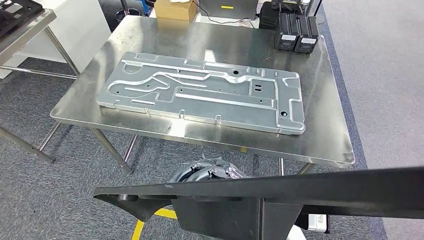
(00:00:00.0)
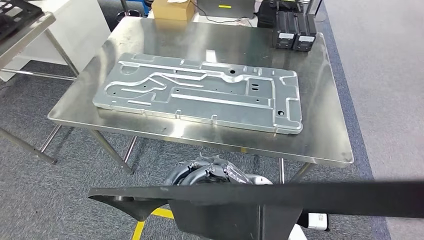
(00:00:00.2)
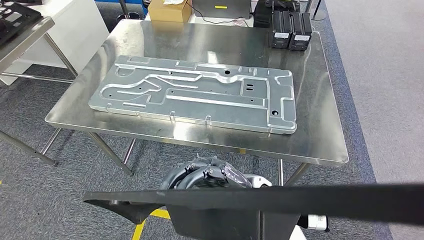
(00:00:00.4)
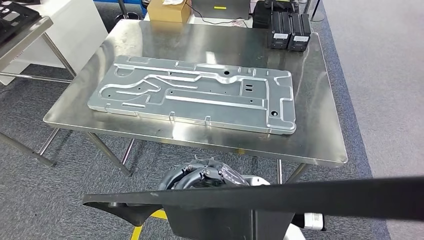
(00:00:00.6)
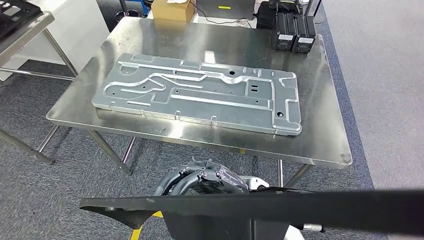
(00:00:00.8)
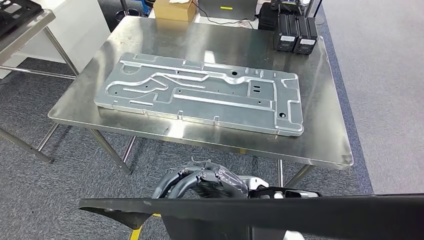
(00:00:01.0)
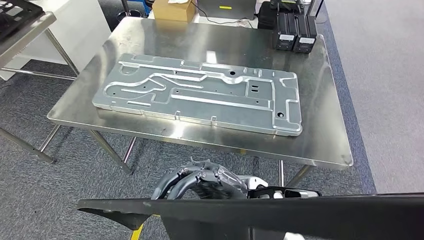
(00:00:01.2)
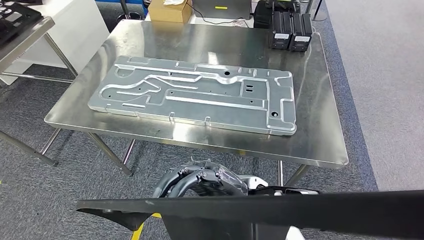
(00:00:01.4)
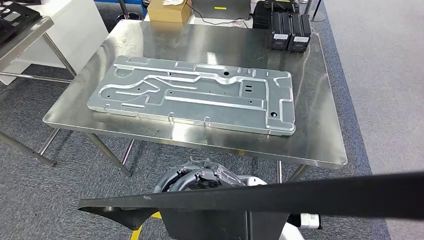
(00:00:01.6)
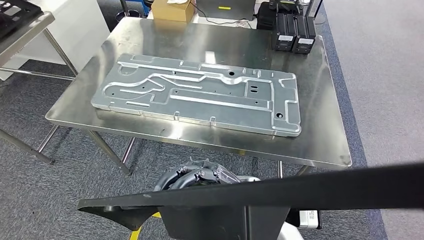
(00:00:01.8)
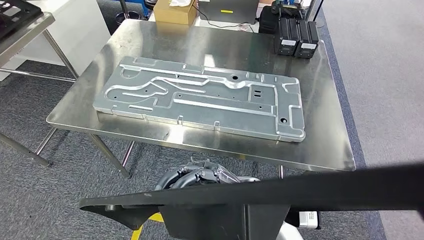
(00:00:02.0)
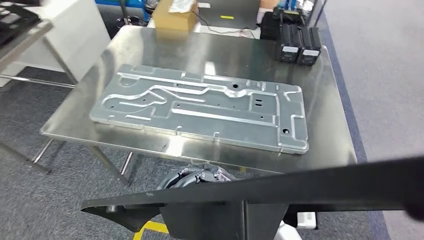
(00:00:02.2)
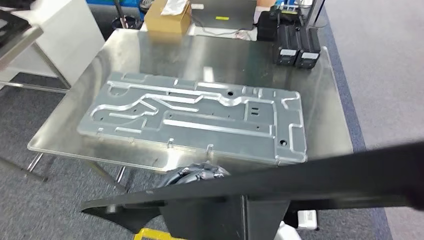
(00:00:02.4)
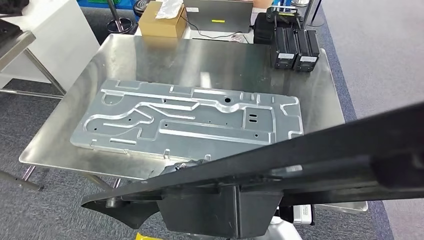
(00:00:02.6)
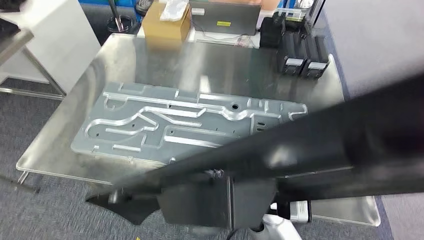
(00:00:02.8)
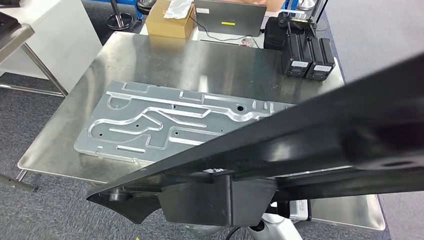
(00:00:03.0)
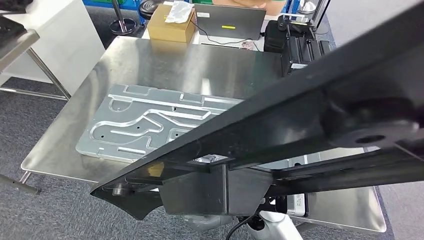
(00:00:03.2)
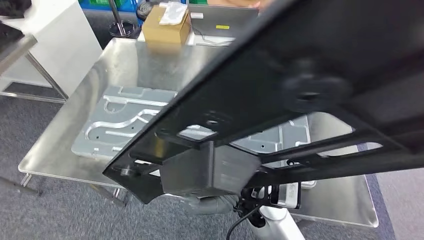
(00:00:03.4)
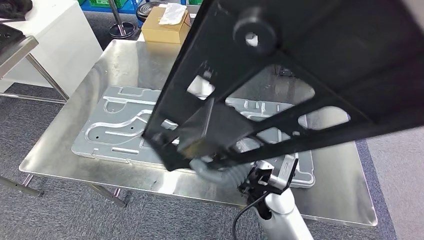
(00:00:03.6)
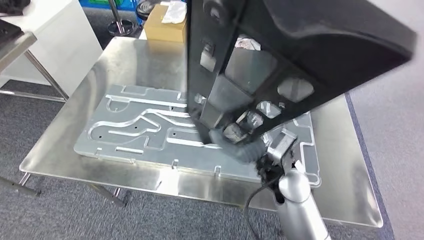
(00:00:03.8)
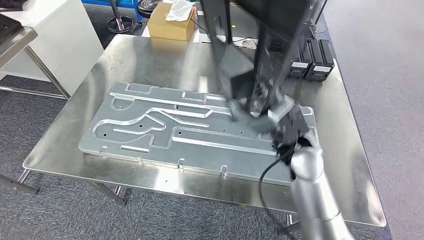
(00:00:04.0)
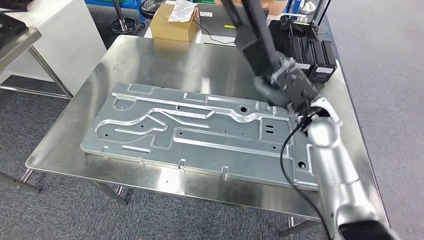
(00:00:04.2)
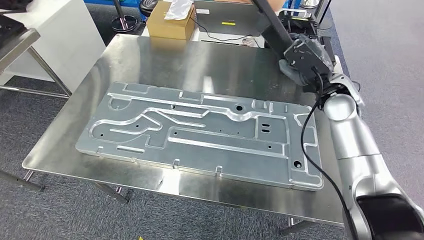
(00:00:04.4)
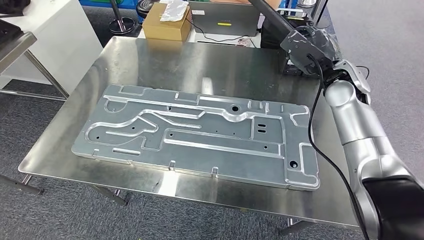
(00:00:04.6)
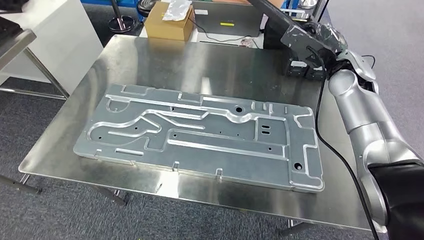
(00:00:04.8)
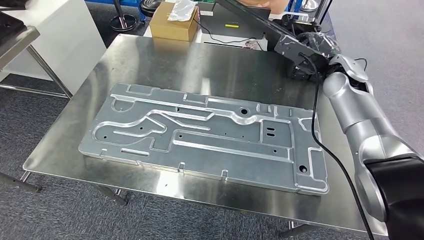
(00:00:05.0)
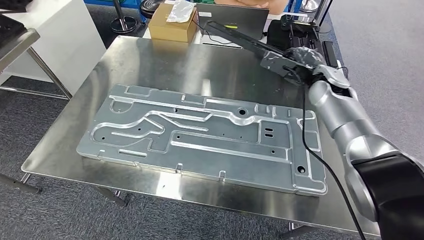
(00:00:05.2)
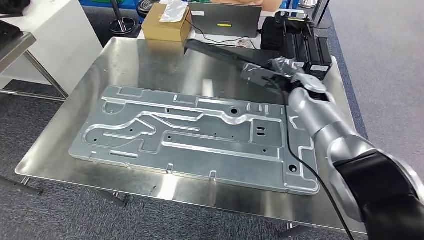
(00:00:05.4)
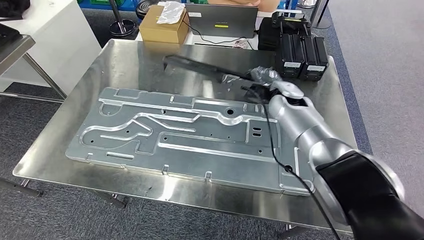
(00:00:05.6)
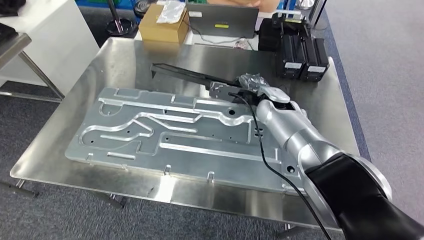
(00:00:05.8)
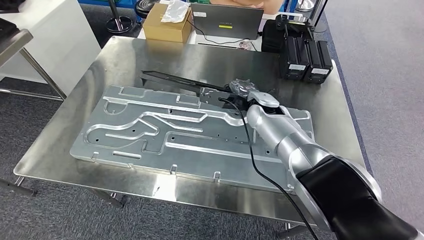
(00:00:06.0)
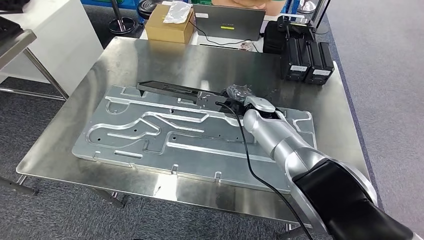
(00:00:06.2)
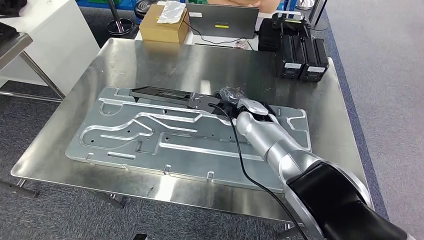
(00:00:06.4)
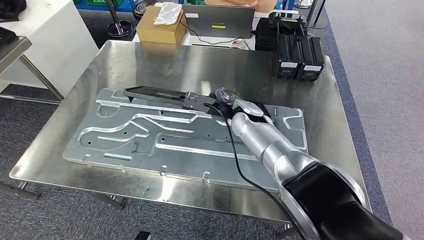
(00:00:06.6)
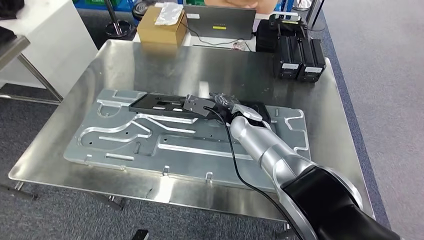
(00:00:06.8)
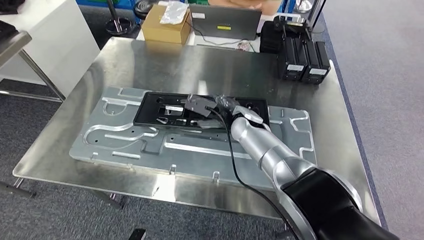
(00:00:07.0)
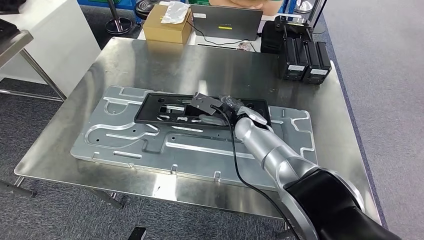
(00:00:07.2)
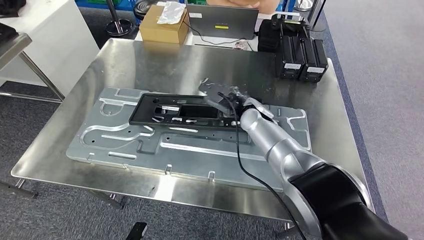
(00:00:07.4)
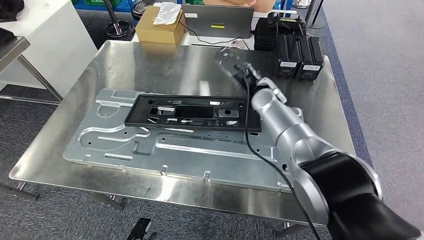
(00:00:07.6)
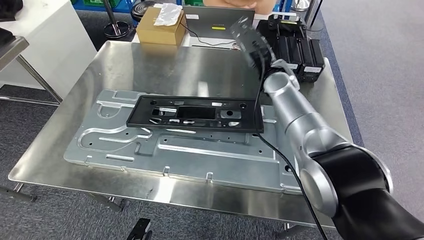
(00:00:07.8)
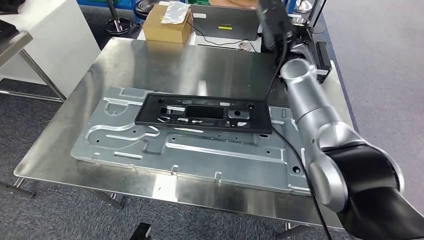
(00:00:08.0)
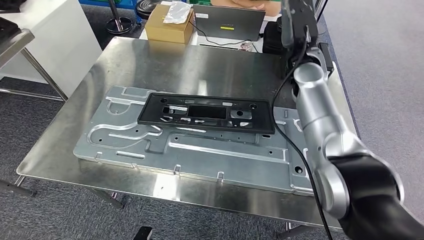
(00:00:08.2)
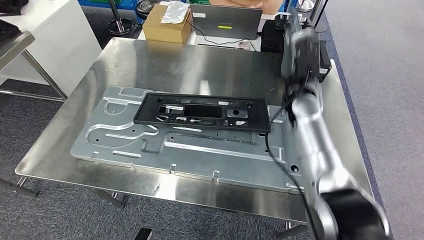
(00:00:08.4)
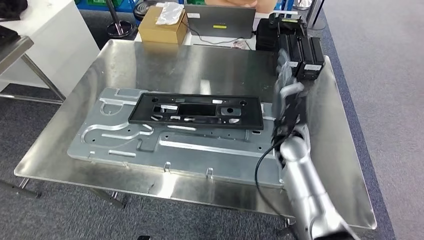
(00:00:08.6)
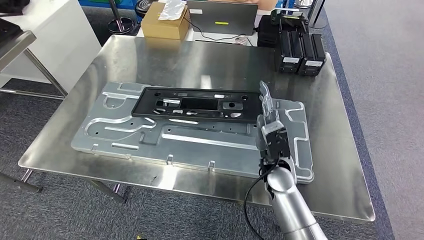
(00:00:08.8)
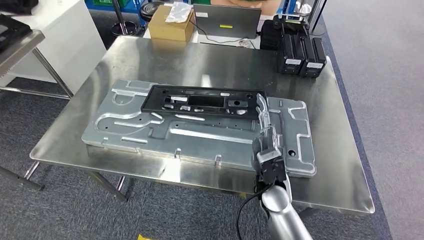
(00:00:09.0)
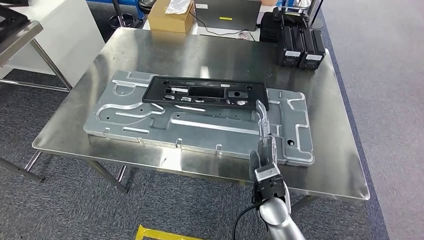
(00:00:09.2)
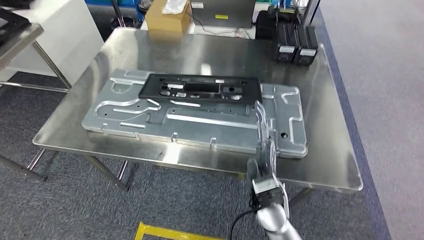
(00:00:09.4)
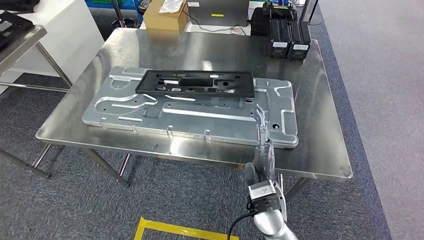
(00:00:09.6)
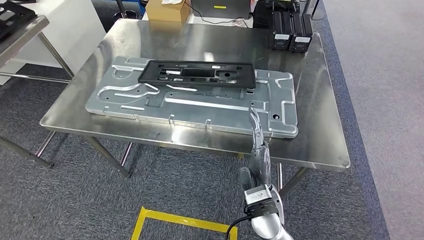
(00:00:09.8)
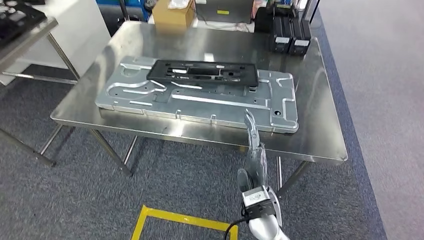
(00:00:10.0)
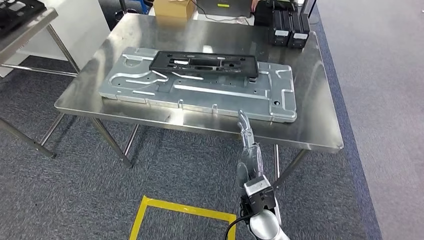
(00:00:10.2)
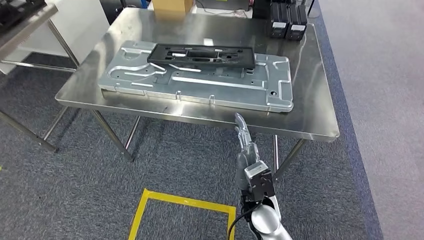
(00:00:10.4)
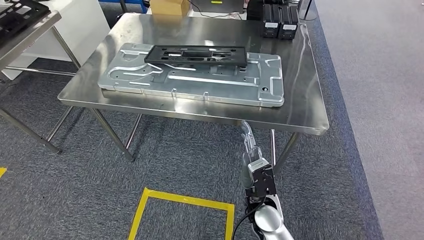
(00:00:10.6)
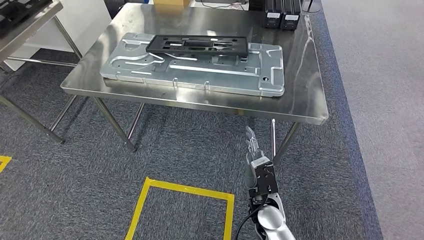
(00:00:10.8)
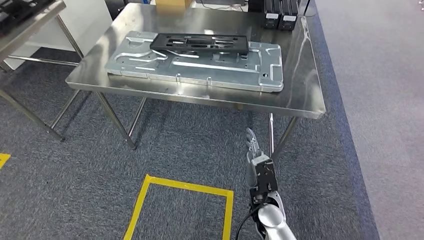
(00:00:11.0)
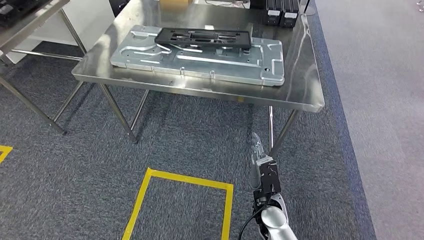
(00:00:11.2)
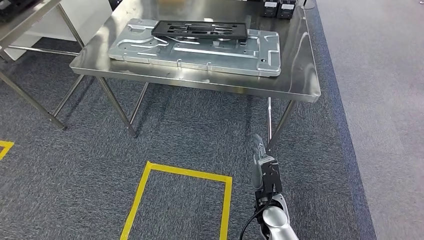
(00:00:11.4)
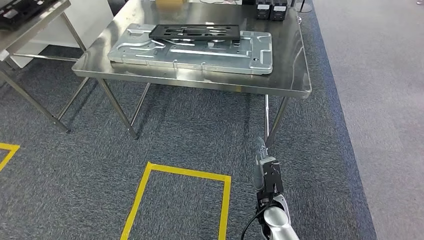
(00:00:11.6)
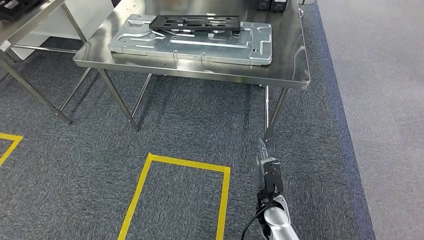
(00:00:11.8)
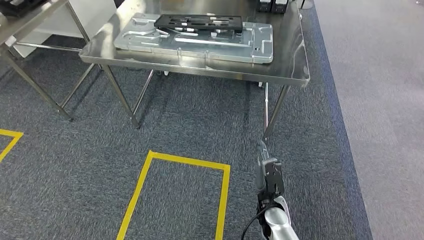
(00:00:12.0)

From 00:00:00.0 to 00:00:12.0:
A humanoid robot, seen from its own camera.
Step, from 00:00:00.0 to 00:00:08.0: Insert the large material into the corresponding slot on the workbench.

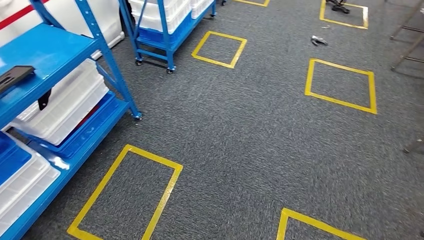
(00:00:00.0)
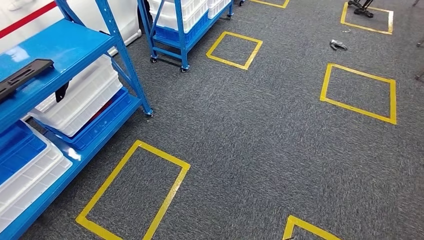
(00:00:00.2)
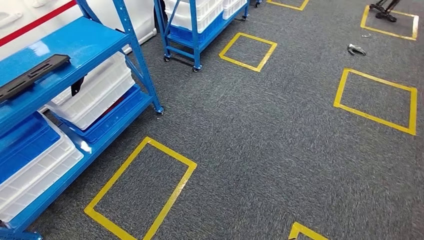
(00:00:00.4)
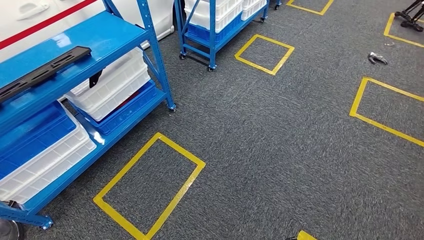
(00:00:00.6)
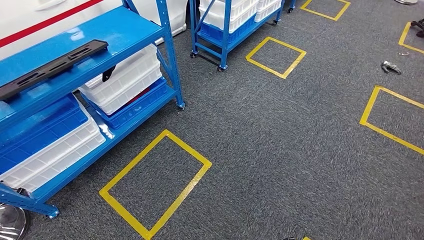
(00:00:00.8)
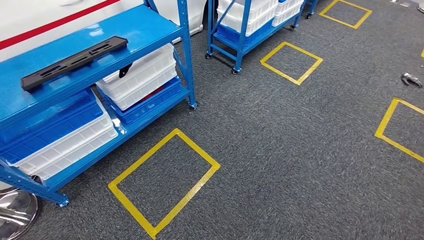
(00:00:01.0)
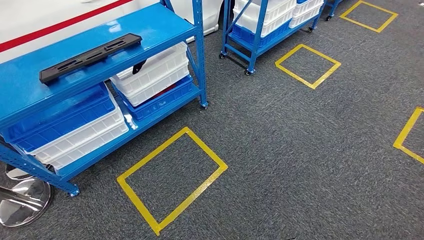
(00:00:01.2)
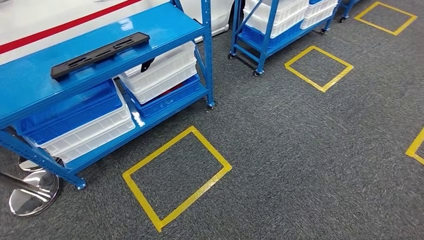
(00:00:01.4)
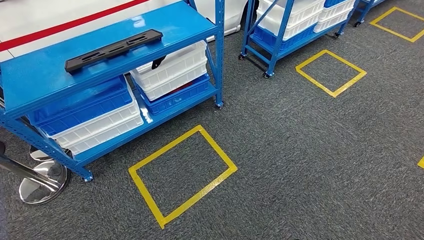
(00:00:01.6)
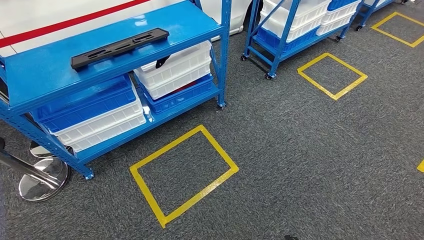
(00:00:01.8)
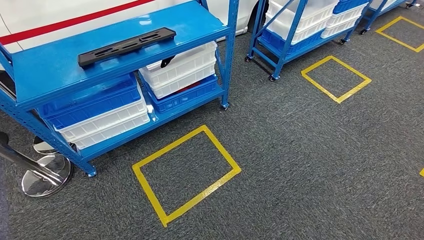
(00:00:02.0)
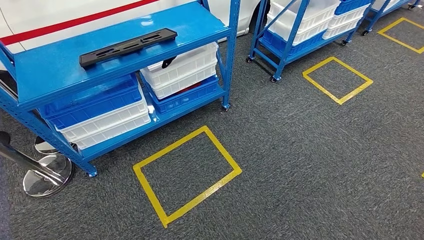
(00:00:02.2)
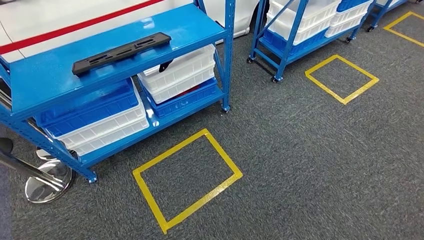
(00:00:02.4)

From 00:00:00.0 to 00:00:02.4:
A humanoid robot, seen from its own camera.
Step, from 00:00:00.0 to 00:00:02.4: Return to the initial position at the shelf.
